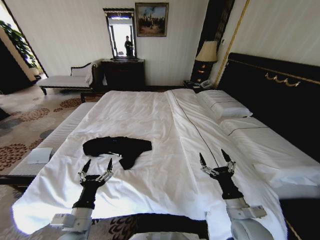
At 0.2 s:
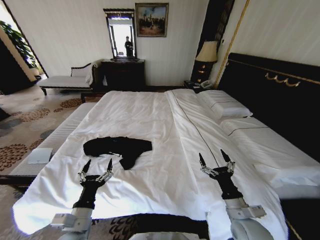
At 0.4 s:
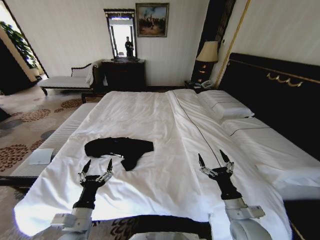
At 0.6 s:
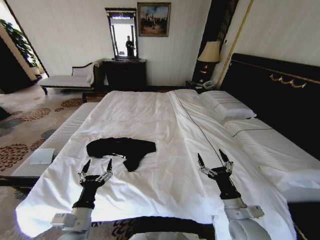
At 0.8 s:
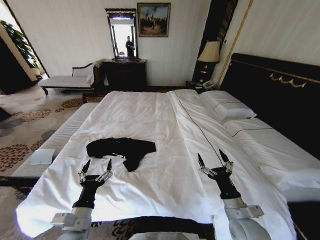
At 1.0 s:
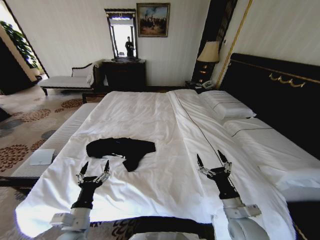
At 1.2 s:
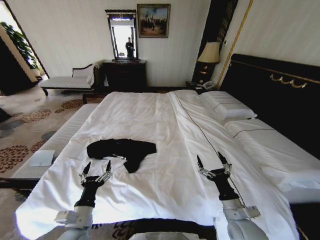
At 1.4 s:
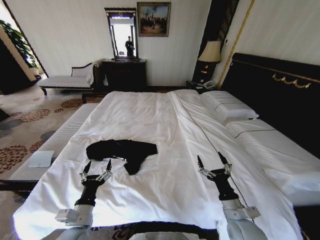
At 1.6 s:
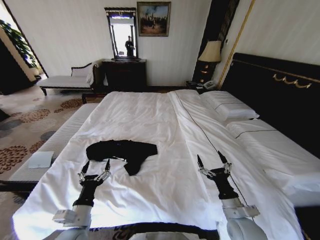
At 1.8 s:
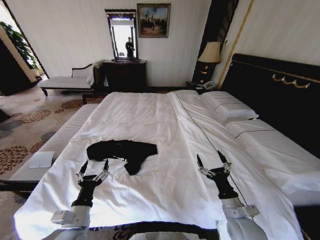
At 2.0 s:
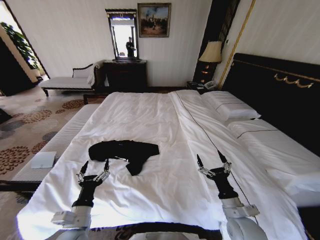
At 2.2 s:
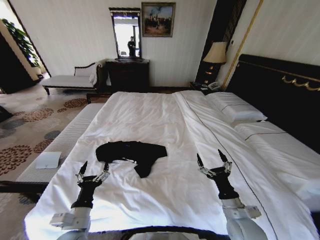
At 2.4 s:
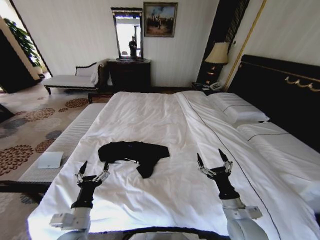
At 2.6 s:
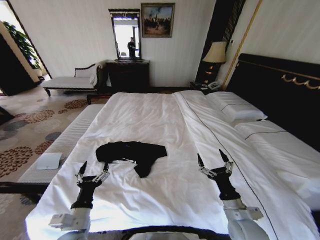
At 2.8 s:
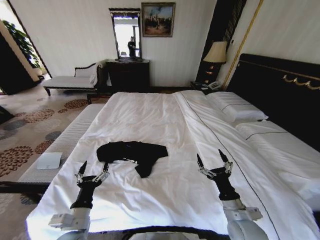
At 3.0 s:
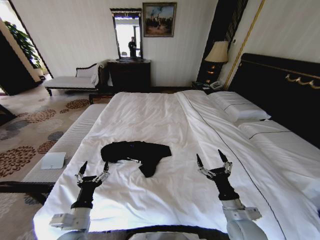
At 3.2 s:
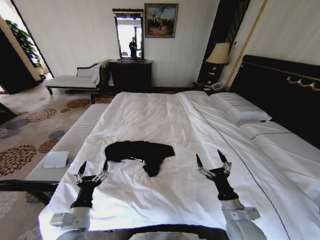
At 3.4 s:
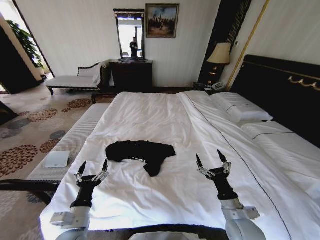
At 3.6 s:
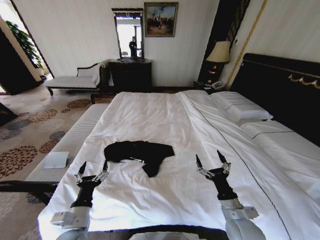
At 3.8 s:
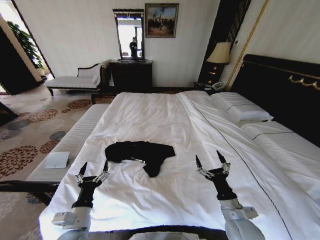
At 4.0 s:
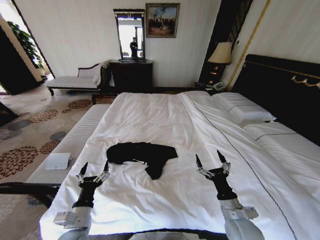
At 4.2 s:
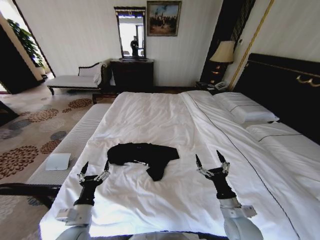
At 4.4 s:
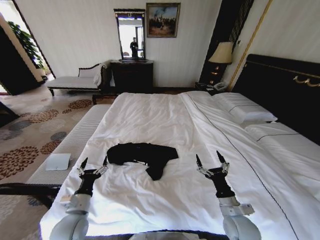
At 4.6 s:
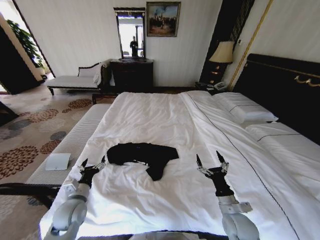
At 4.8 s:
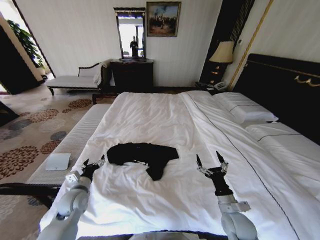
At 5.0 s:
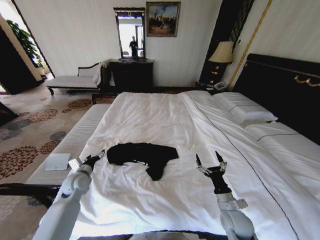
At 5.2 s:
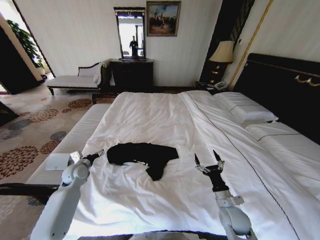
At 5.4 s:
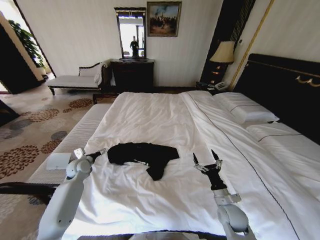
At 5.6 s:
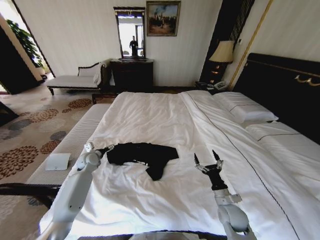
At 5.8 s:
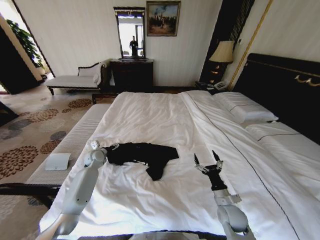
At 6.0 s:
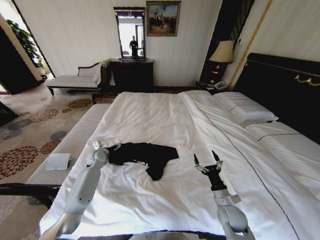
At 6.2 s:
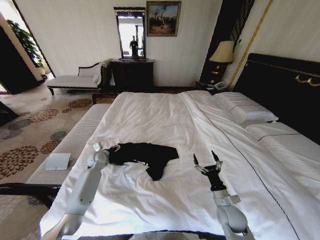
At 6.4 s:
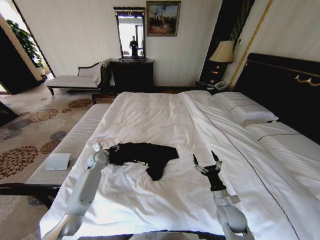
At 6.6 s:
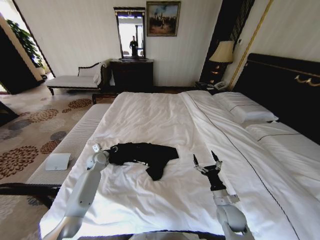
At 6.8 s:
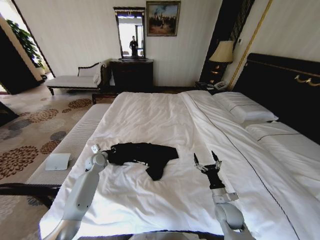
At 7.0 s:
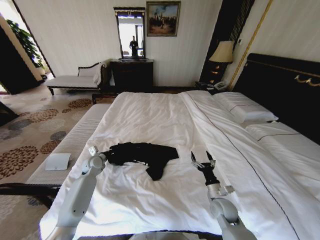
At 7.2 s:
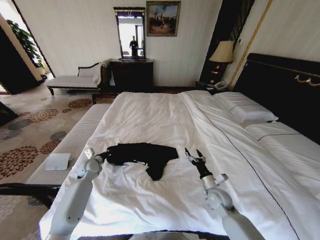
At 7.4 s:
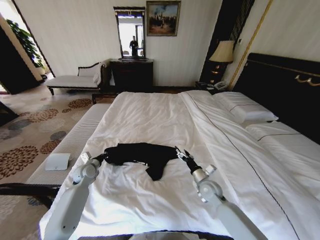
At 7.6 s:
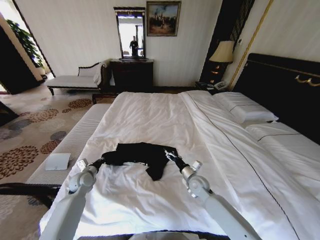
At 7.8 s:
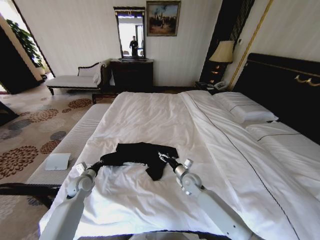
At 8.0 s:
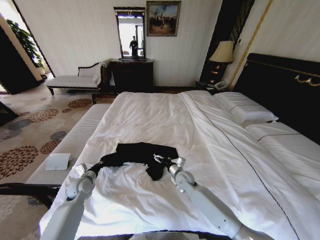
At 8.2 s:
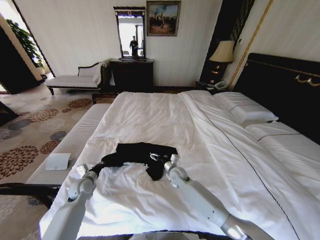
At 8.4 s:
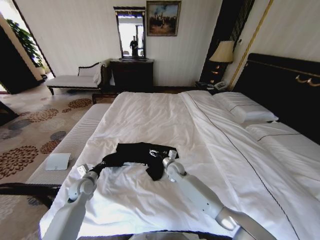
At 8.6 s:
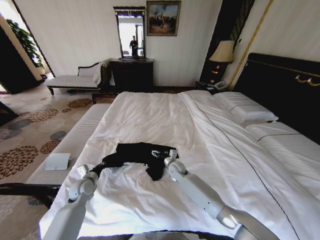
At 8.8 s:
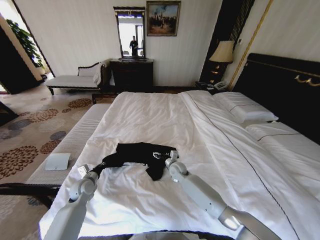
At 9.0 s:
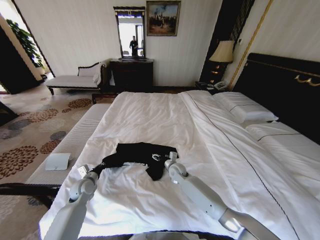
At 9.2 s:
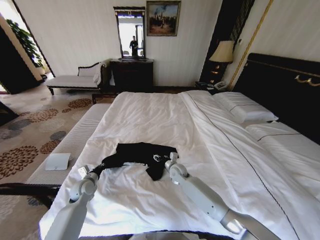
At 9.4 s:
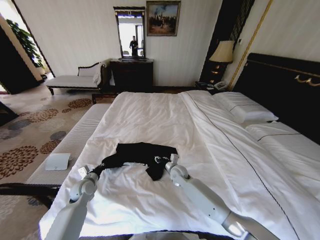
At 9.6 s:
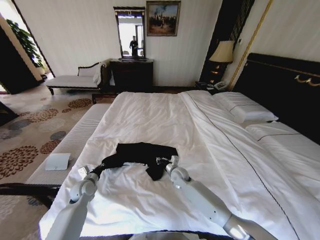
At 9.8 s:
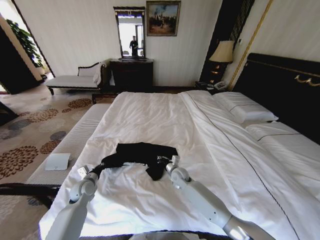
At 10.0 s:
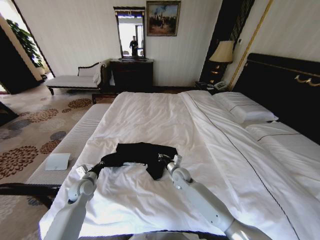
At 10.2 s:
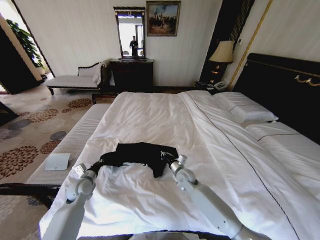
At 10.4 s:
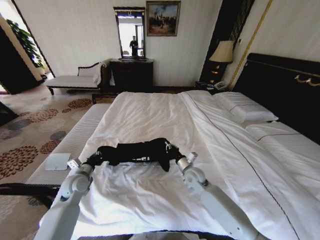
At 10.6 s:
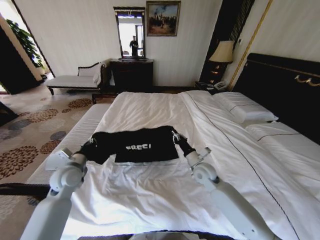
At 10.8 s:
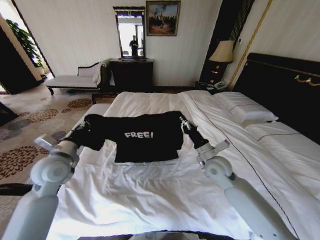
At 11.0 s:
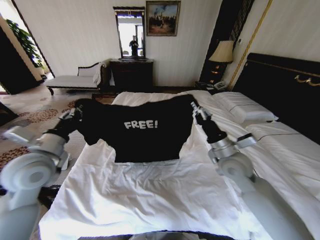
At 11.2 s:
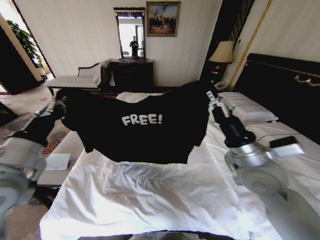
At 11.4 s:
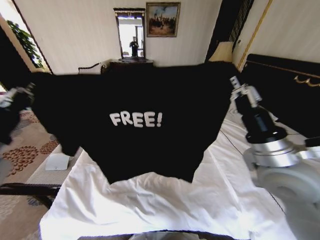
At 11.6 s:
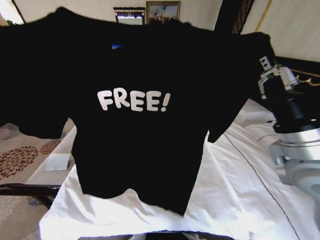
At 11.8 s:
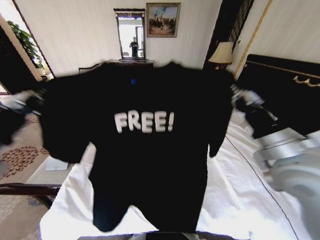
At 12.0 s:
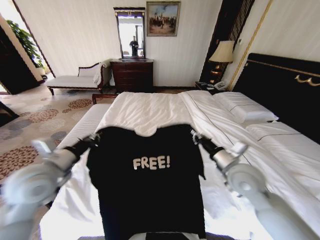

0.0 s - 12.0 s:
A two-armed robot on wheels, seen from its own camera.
Task of the whole recording: Fold the clothes on the bed.
3.0 s - 4.4 s: The left gripper changes place by some 5 cm.
4.4 s - 6.0 s: The right gripper travels downward by about 5 cm, while the left gripper moves forward, approximately 30 cm.
6.0 s - 7.6 s: The right gripper travels forward and to the left by some 15 cm; the left gripper is displaced backward by approximately 10 cm, and closes up.
7.6 s - 9.0 s: The right gripper heads to the left and forward, covering approximately 10 cm.
9.0 s - 10.4 s: The right gripper goes some 10 cm to the right and backward, and closes its fingers. Meanwhile the left gripper heads upward, covering some 5 cm.
10.4 s - 12.0 s: The right gripper goes some 20 cm upward, to the right and backward. Meanwhile the left gripper is displaced upward by some 20 cm.

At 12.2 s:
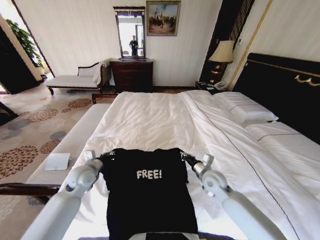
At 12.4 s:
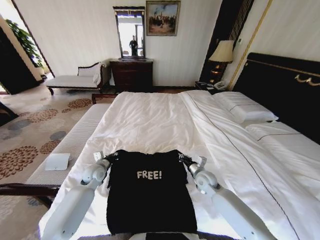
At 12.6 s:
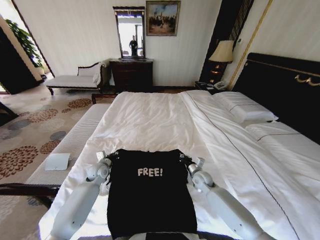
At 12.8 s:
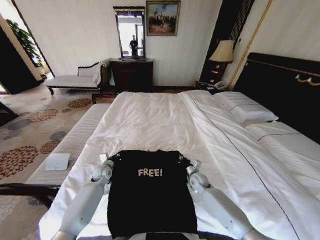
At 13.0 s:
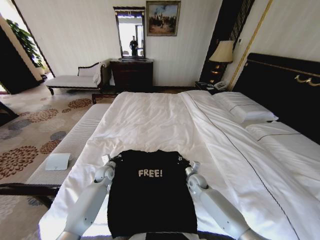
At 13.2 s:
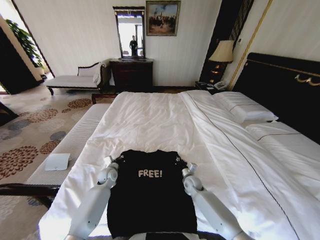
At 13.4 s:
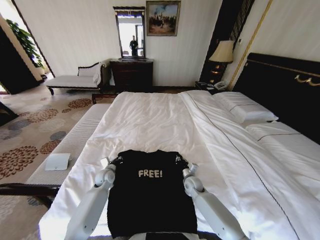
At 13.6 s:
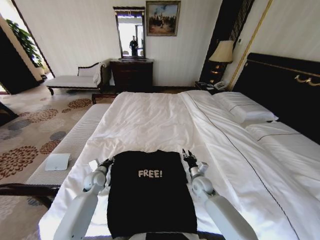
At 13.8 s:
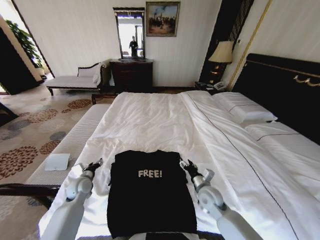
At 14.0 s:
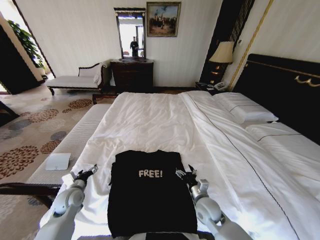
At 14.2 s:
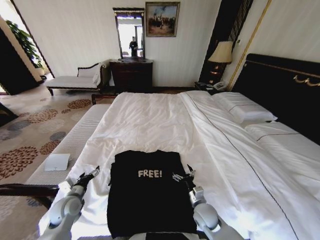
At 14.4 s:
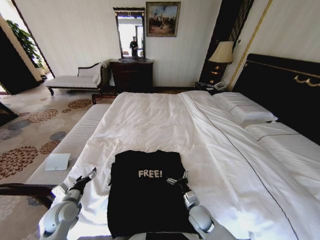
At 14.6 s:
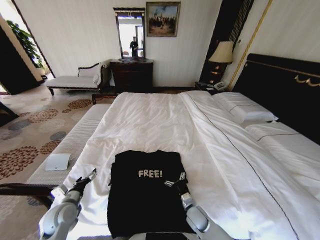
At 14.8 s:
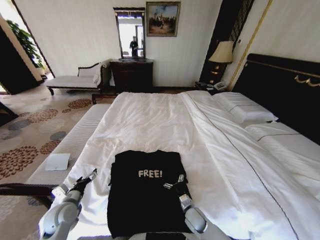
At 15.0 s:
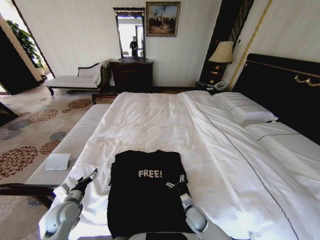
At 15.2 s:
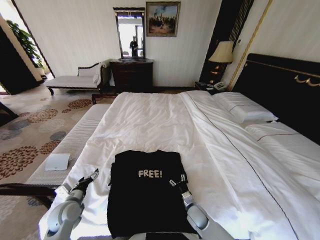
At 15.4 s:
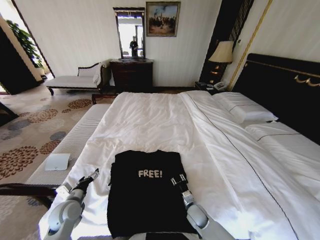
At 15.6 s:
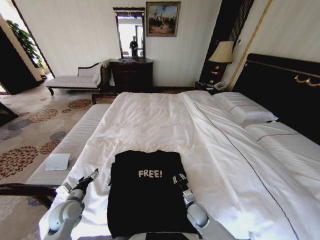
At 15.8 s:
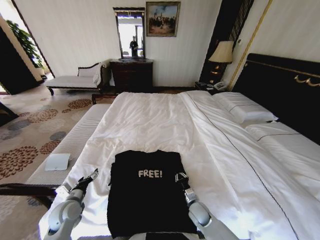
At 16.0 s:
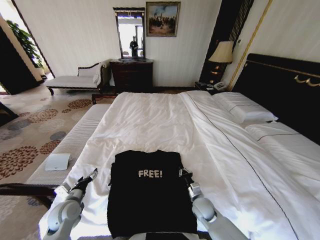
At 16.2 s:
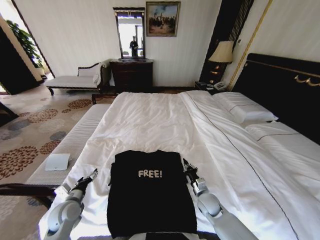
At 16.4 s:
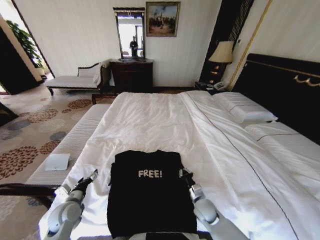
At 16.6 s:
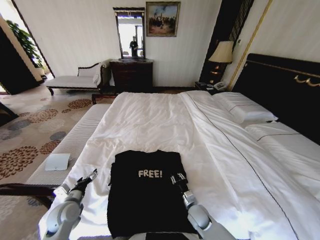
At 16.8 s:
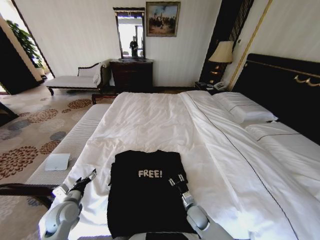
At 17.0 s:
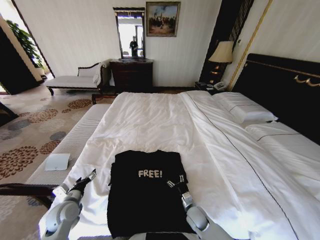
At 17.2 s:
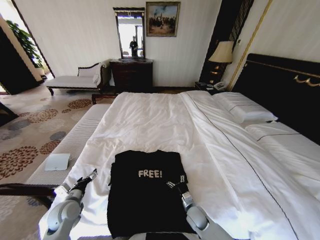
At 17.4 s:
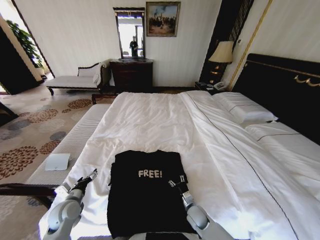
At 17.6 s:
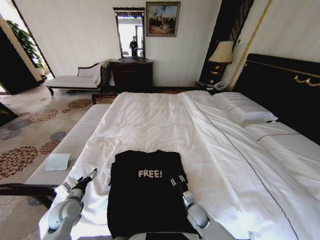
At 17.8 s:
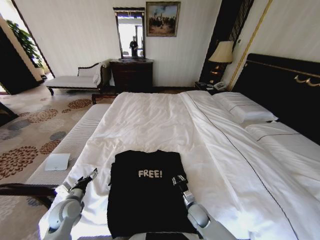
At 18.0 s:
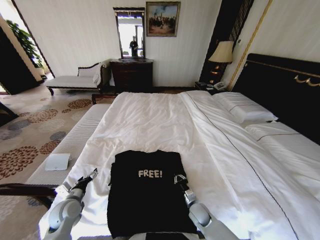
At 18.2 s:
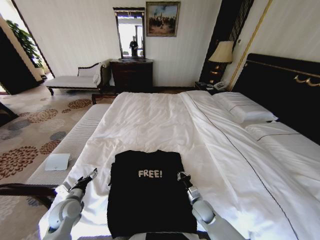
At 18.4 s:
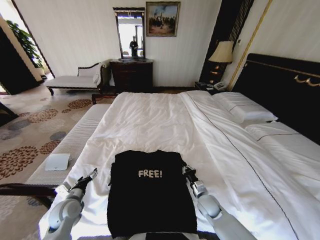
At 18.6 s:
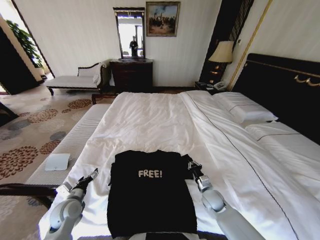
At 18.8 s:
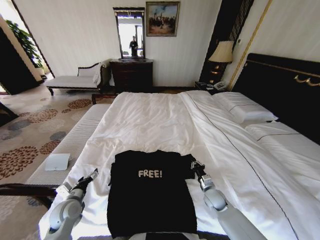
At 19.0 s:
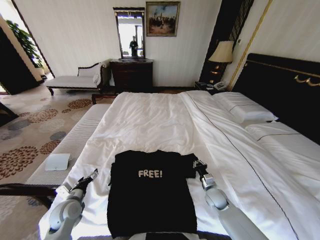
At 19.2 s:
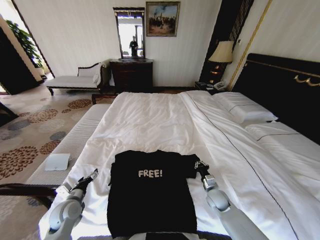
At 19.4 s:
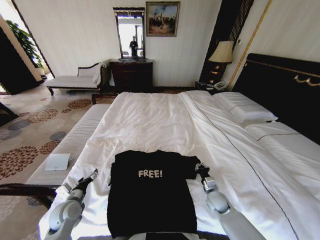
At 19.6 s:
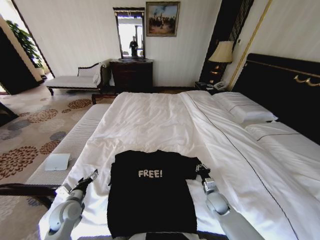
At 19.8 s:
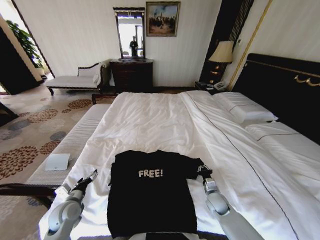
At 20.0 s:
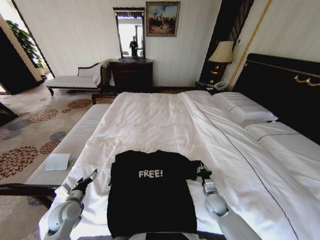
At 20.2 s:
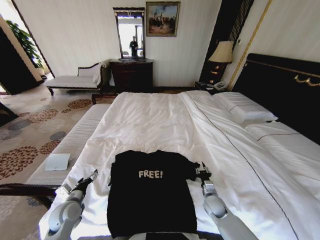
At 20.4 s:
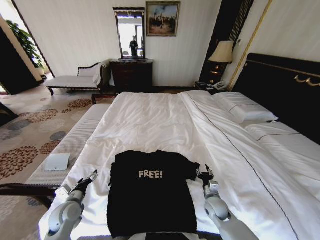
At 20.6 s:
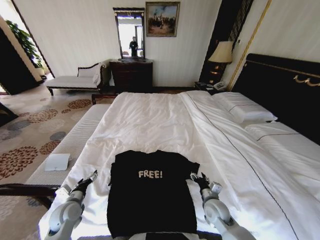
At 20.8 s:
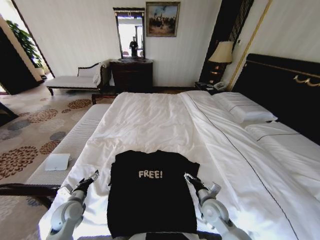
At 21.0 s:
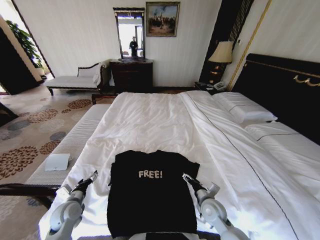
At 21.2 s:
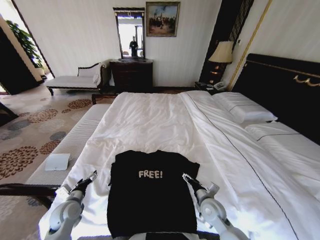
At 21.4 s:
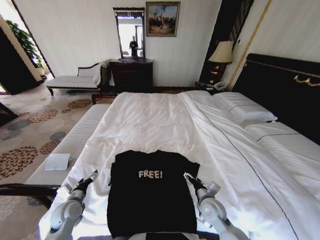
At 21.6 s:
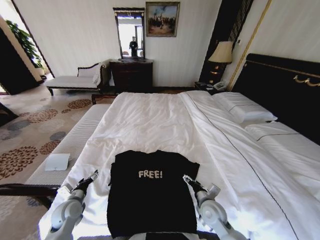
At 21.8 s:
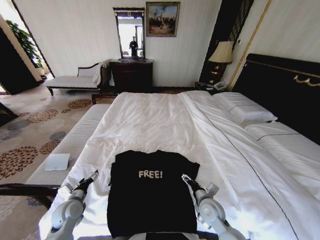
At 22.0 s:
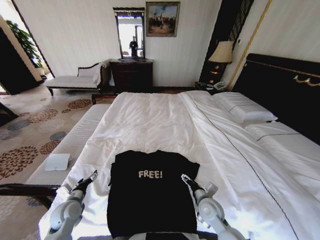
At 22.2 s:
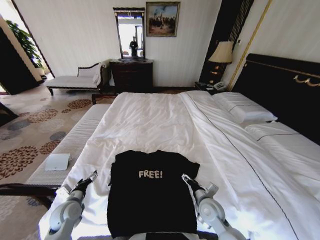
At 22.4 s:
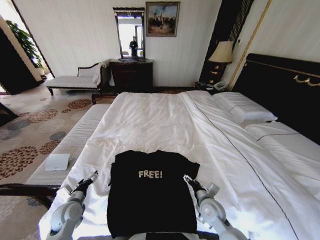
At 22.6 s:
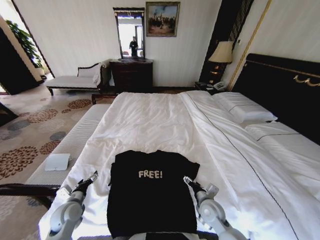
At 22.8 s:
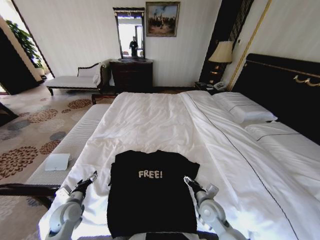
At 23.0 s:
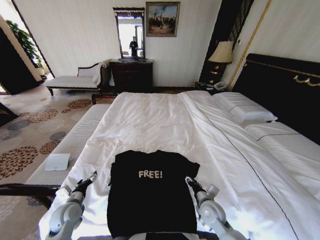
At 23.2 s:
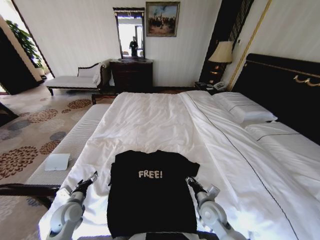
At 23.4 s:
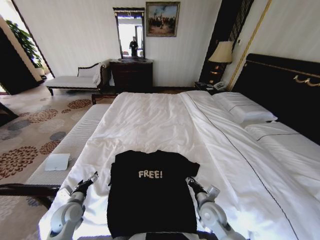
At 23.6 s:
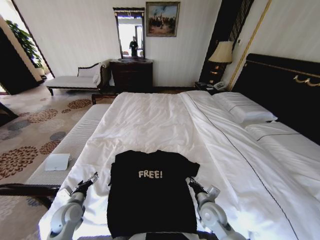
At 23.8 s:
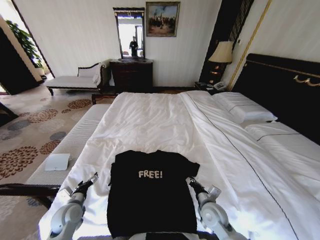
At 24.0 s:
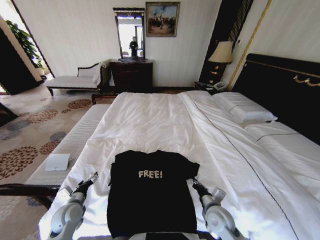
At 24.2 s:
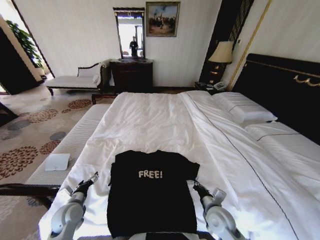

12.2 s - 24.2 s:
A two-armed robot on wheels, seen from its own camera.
Task of the whole recording: Fold the clothes on the bed.
12.2 s - 13.8 s: The right gripper travels downward and back again, about 15 cm each way, and opens its fingers. The left gripper is displaced downward by approximately 10 cm, and opens up.
13.8 s - 15.2 s: The right gripper is displaced downward by approximately 15 cm. Meanwhile the left gripper shifts about 10 cm backward.
16.6 s - 18.2 s: The right gripper opens, then closes once more.
18.2 s - 19.8 s: The right gripper travels to the right by roughly 10 cm.
19.8 s - 21.2 s: The right gripper heads upward and to the left, covering approximately 10 cm, and opens its fingers.
21.2 s - 22.6 s: The grippers make only small movements.
22.6 s - 24.2 s: The right gripper closes.
